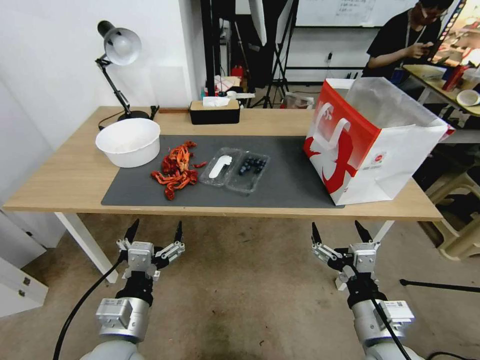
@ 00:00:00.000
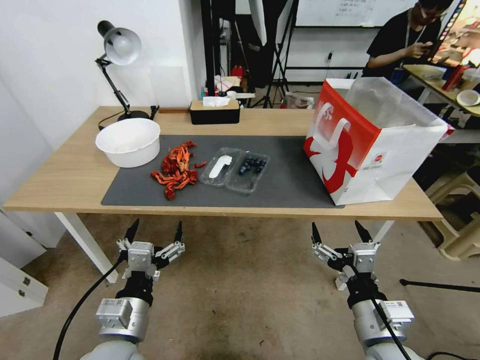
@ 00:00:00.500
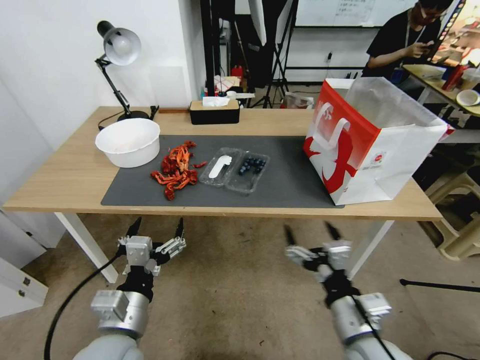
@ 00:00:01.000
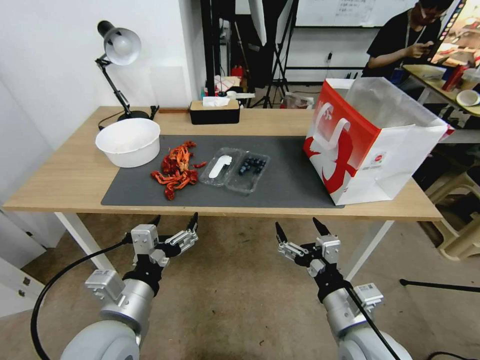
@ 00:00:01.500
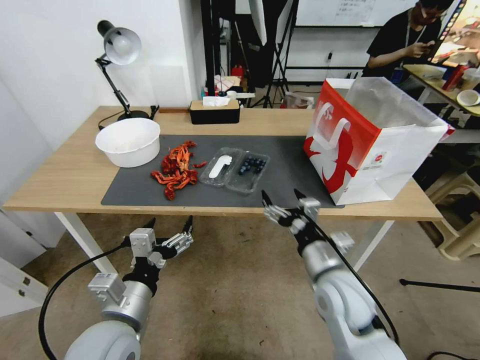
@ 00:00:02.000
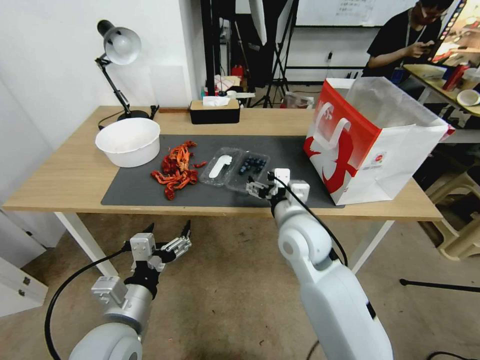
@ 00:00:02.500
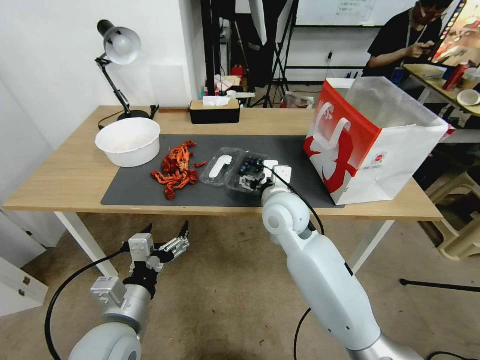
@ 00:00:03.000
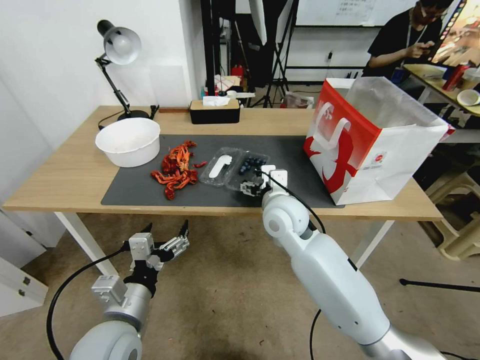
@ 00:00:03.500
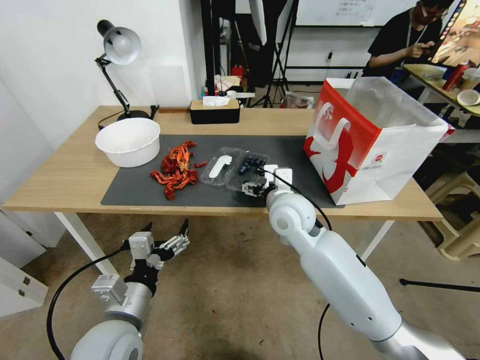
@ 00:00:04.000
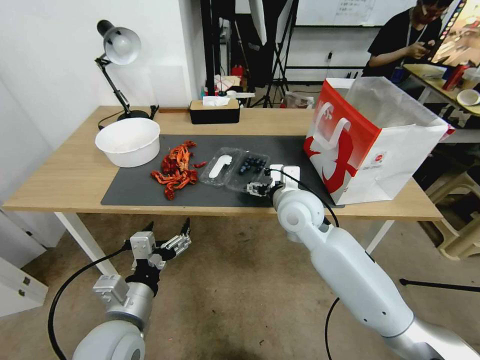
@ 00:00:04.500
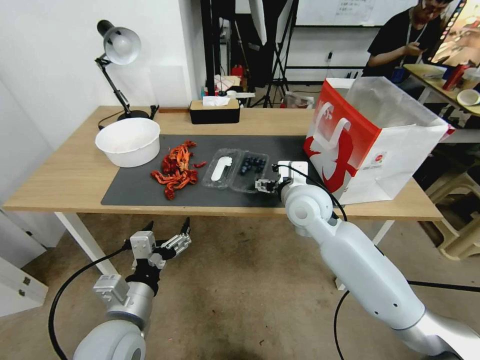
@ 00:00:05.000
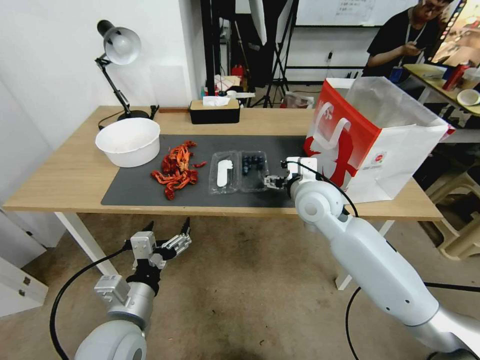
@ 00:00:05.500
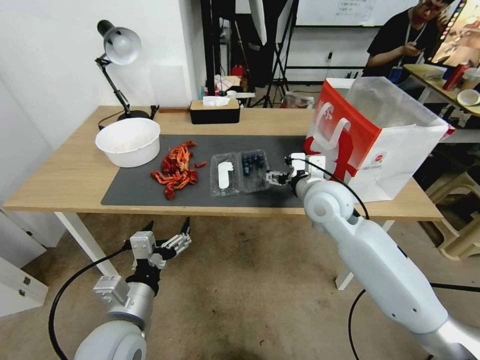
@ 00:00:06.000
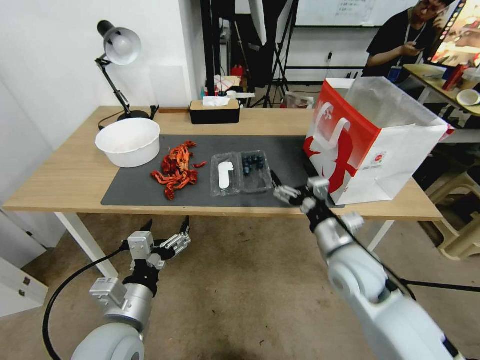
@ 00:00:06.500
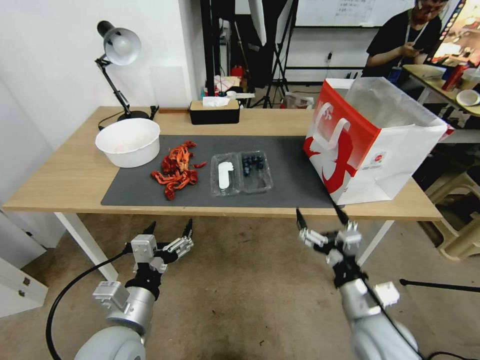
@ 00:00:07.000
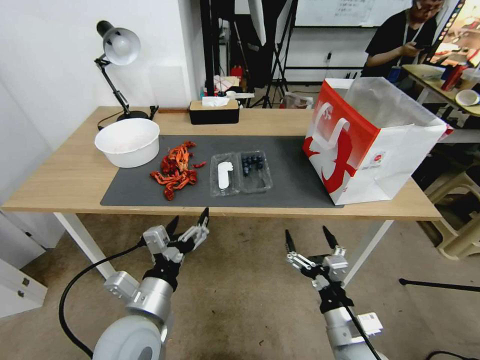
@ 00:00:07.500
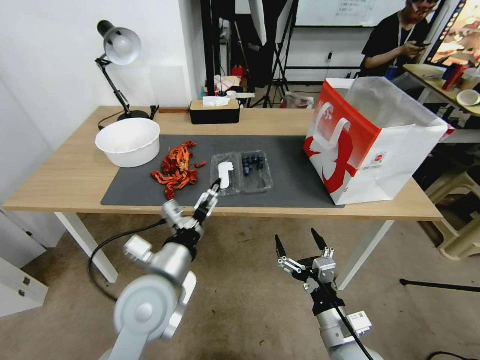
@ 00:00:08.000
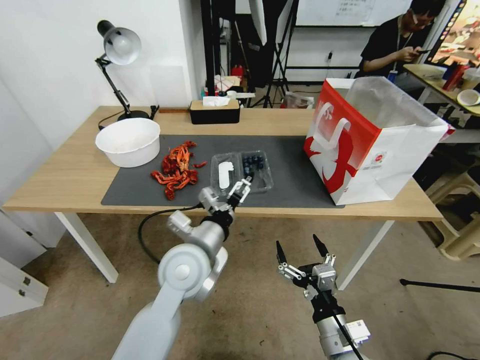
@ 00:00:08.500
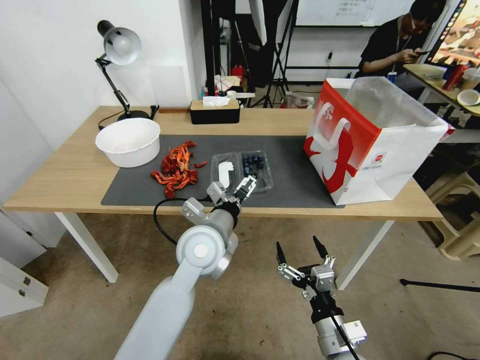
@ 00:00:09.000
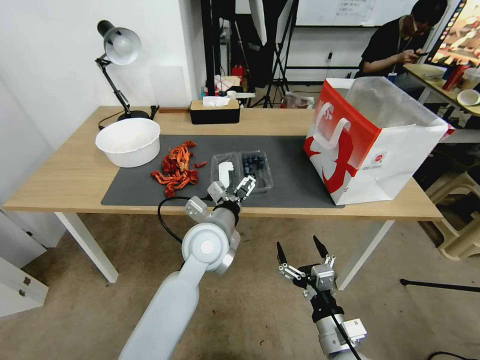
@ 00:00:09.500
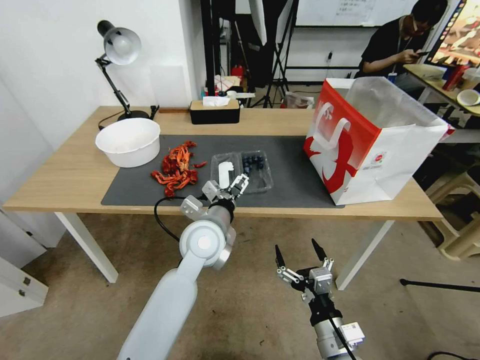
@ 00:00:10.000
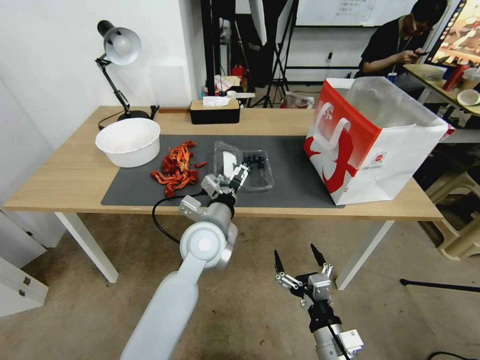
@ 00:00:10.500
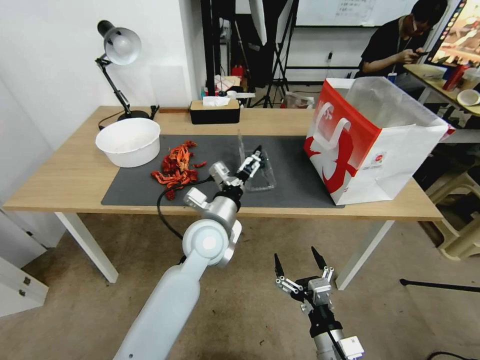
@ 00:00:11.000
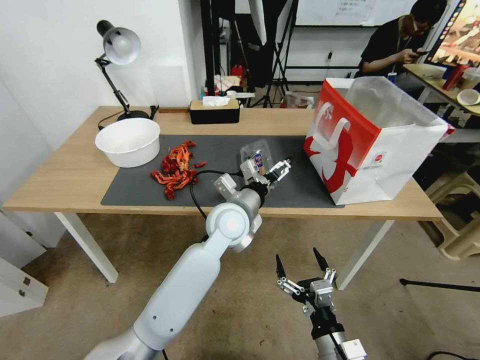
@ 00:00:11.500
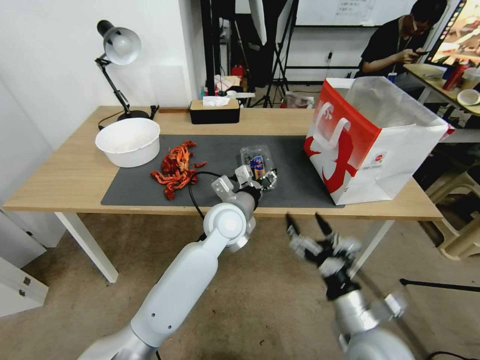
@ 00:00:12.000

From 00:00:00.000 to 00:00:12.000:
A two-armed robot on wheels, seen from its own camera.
Task of the whole recording: Close the takeout container lid, then place the container into the takeout bag.
From 00:00:02.000 to 00:00:04.000: The right gripper goes some 15 cm forward, to the left and upward.
From 00:00:04.000 to 00:00:06.000: The right gripper goes some 5 cm to the right.
From 00:00:06.000 to 00:00:08.000: The right gripper is displaced backward and downward by approximately 30 cm; the left gripper travels forward and to the right by approximately 5 cm.
From 00:00:08.000 to 00:00:10.000: The left gripper heads forward and to the right, covering roughly 15 cm.
From 00:00:10.000 to 00:00:12.000: The right gripper moves upward, roughly 5 cm. The left gripper ends up roughly 5 cm from where it was, and closes its fingers.

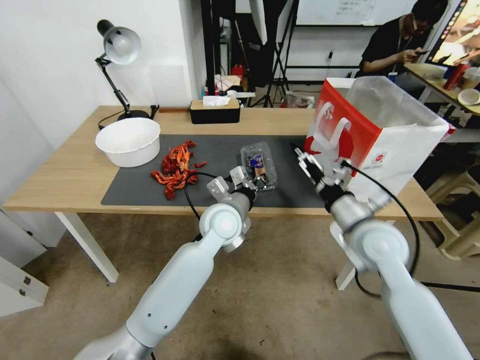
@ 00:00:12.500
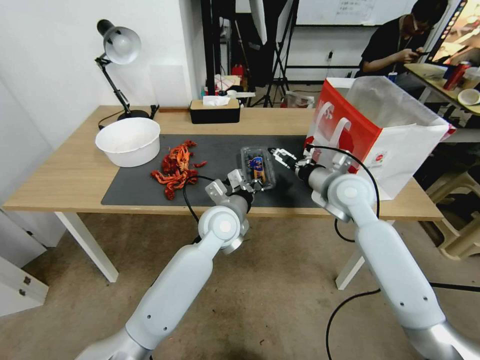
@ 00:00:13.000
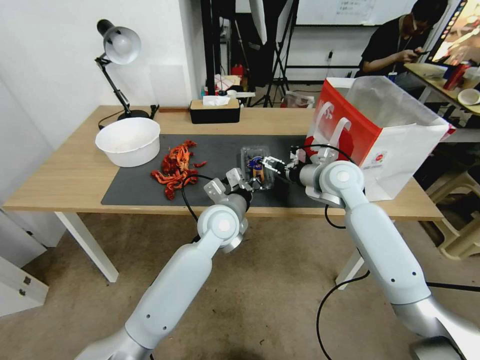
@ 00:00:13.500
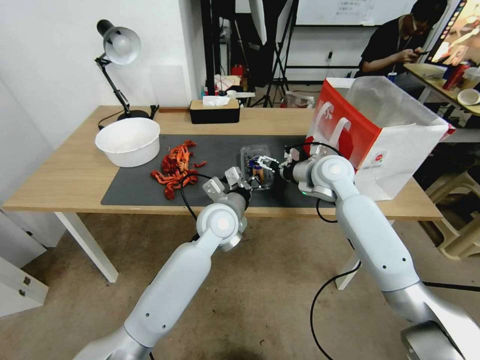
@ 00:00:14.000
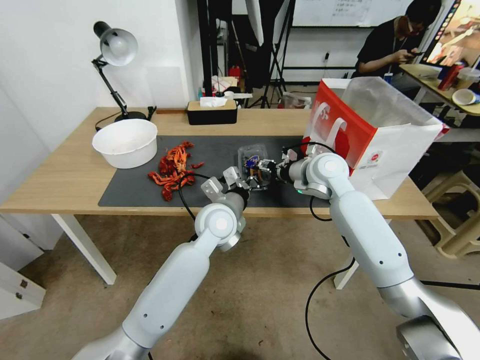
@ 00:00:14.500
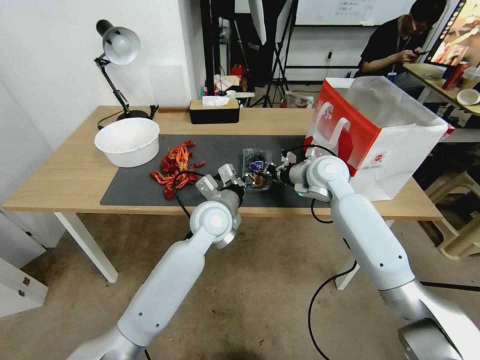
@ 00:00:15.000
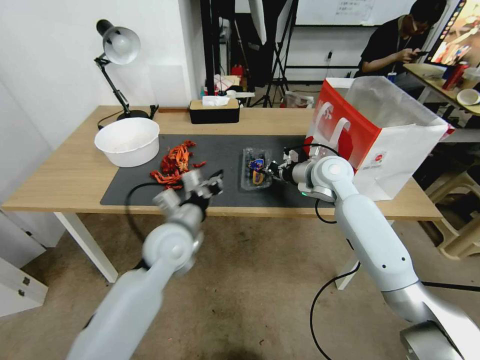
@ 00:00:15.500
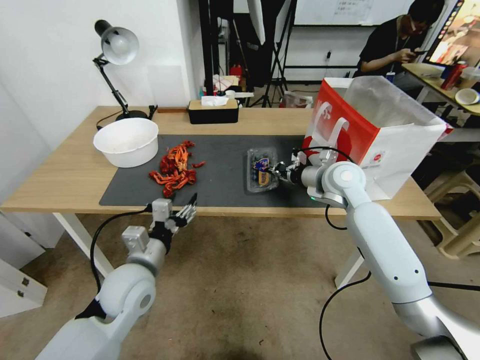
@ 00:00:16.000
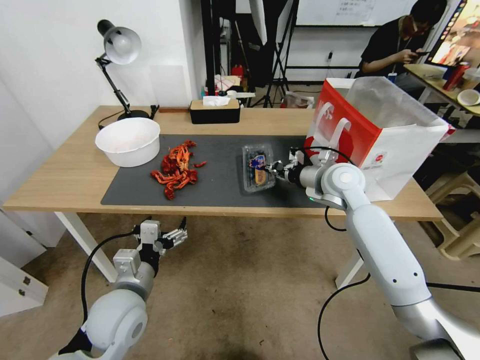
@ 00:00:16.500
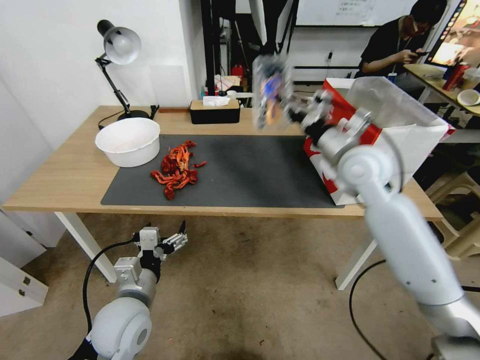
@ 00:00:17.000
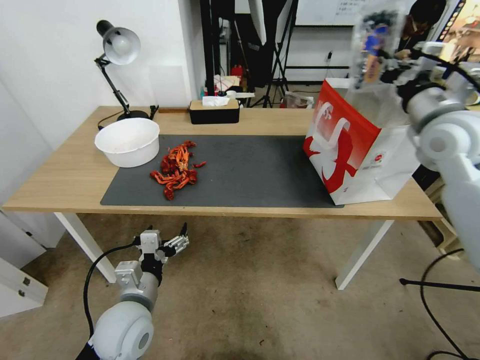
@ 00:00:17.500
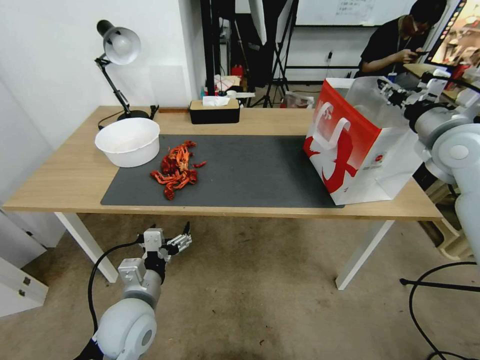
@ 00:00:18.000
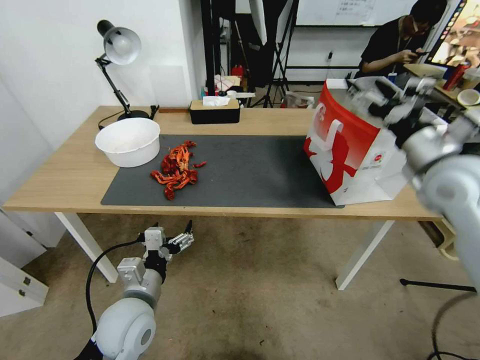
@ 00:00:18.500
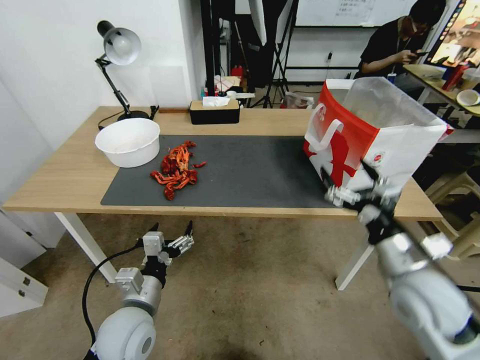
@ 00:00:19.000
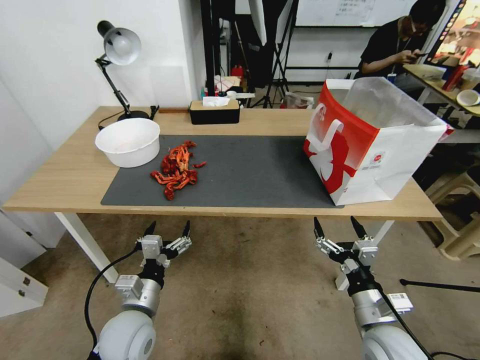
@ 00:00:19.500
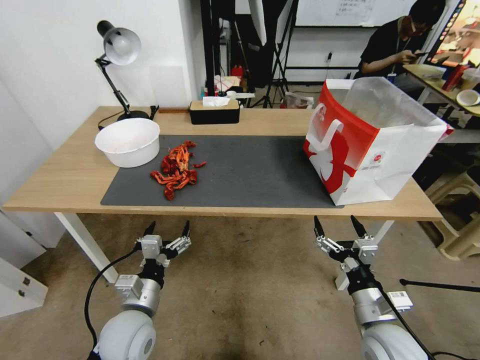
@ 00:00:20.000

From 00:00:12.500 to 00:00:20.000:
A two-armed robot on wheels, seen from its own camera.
Task of the whole recording: Close the takeout container lid, then place the container into the takeout bag.
From 00:00:12.500 to 00:00:14.500: The right gripper goes approximately 20 cm forward, and closes its fingers.
From 00:00:14.500 to 00:00:16.500: The left gripper moves backward and to the left, some 25 cm, and opens; the right gripper closes its fingers.
From 00:00:16.500 to 00:00:18.000: The right gripper is displaced to the right and upward by approximately 20 cm, and opens its fingers.
From 00:00:18.000 to 00:00:20.000: The right gripper moves downward and backward, some 35 cm, and opens up.
